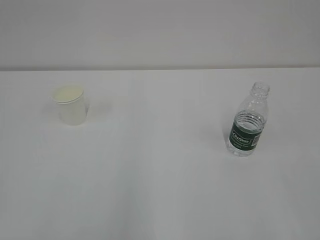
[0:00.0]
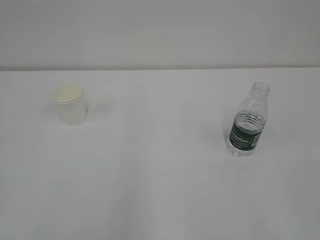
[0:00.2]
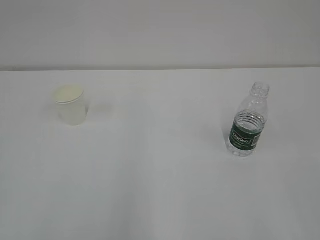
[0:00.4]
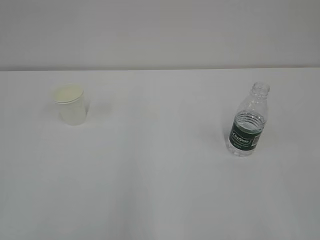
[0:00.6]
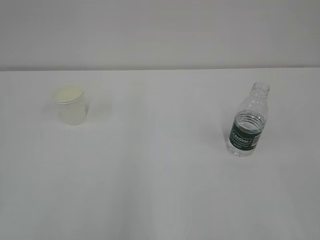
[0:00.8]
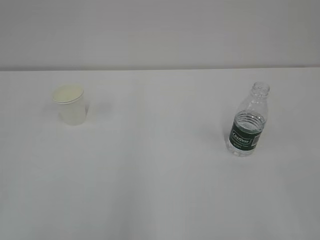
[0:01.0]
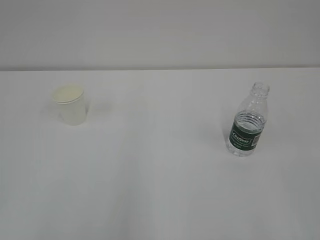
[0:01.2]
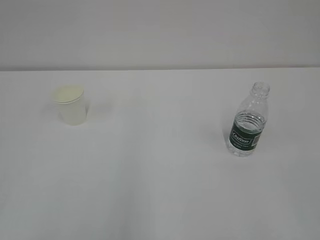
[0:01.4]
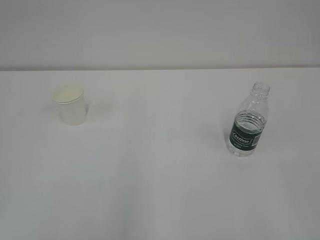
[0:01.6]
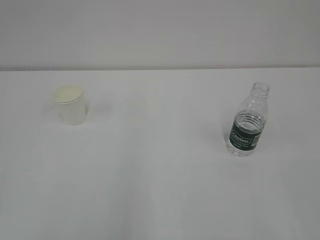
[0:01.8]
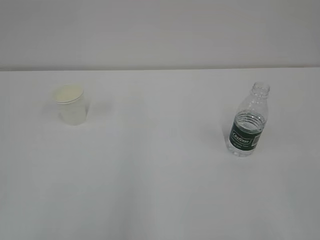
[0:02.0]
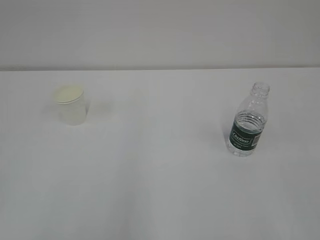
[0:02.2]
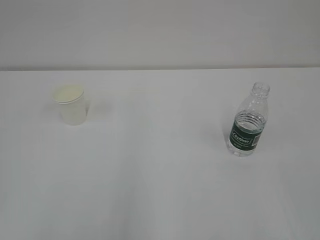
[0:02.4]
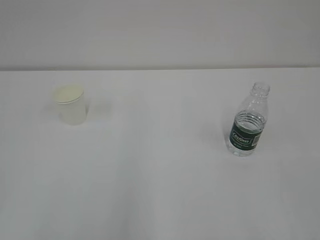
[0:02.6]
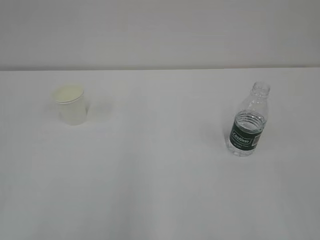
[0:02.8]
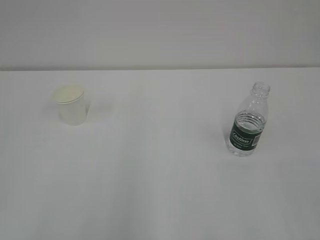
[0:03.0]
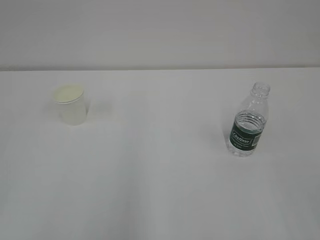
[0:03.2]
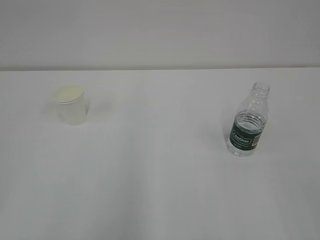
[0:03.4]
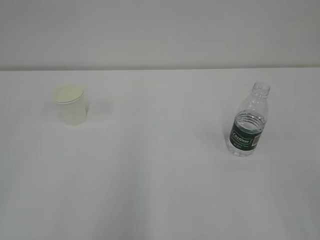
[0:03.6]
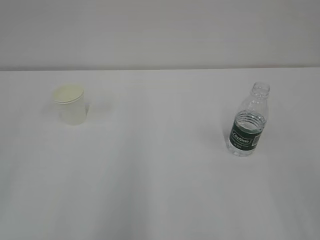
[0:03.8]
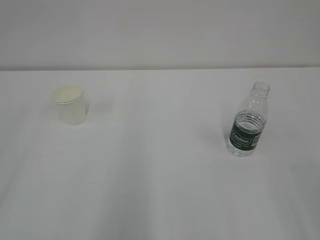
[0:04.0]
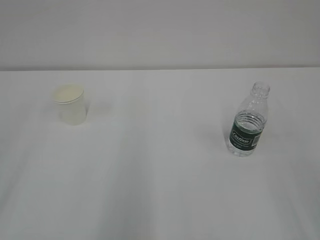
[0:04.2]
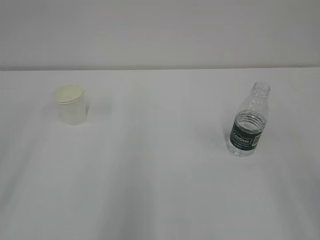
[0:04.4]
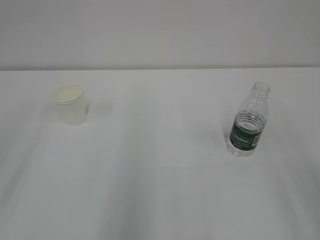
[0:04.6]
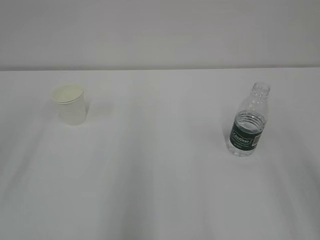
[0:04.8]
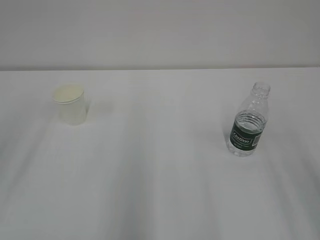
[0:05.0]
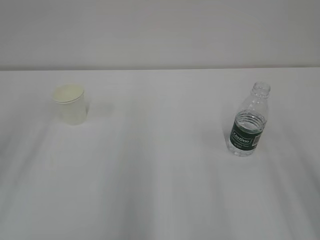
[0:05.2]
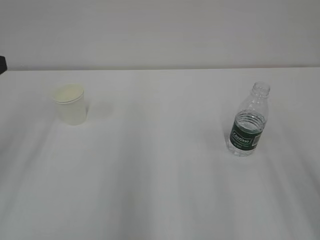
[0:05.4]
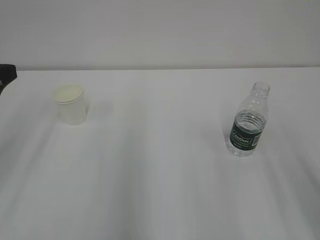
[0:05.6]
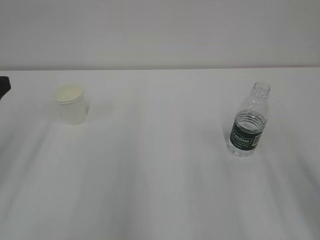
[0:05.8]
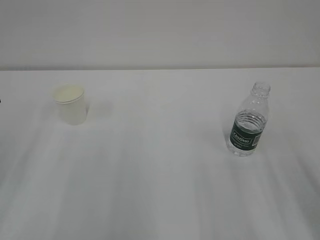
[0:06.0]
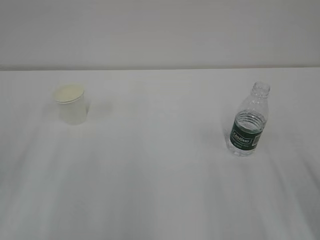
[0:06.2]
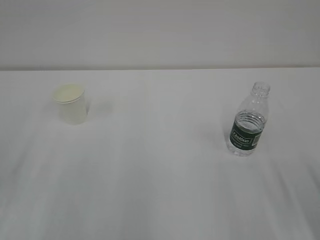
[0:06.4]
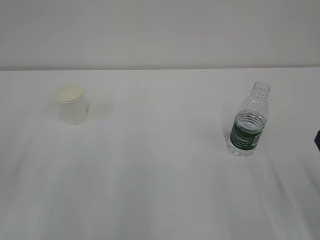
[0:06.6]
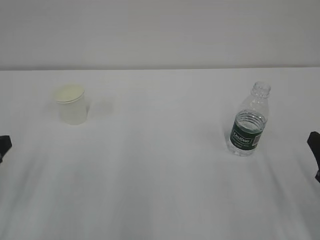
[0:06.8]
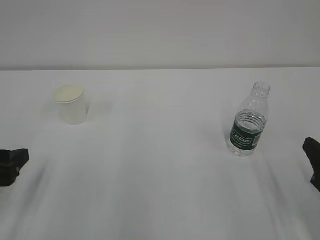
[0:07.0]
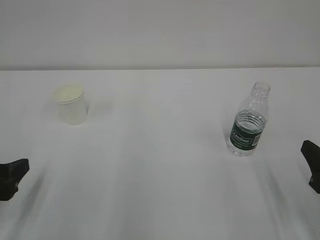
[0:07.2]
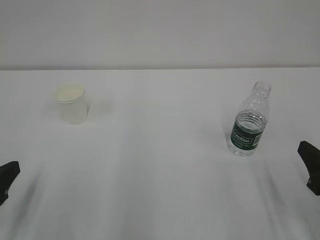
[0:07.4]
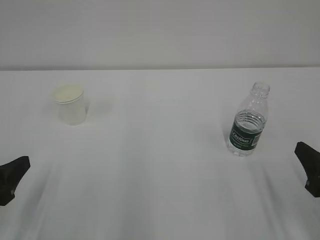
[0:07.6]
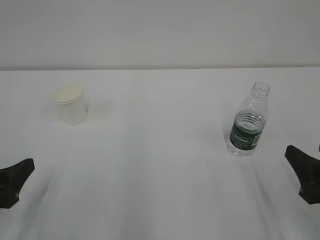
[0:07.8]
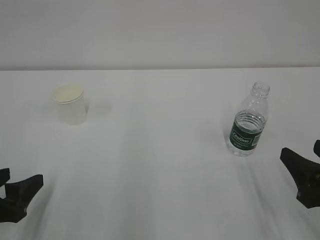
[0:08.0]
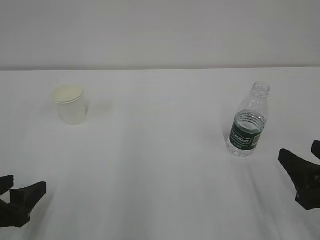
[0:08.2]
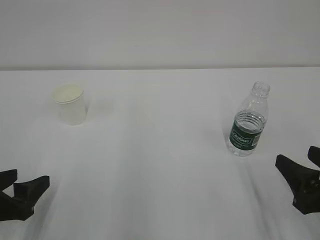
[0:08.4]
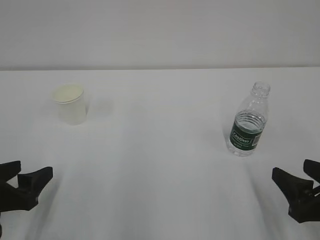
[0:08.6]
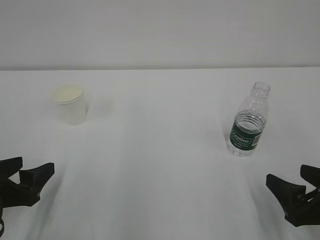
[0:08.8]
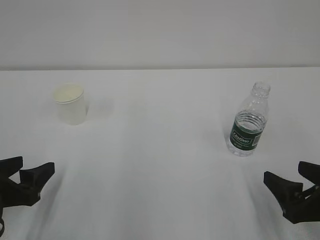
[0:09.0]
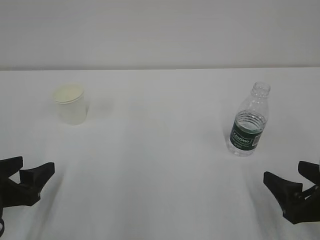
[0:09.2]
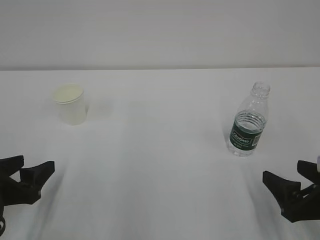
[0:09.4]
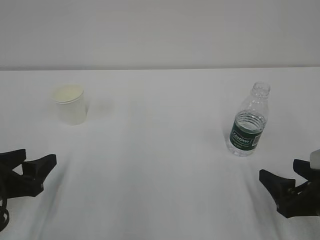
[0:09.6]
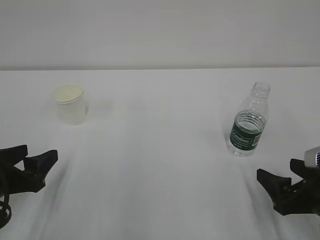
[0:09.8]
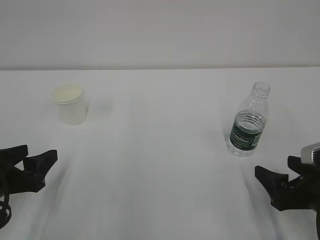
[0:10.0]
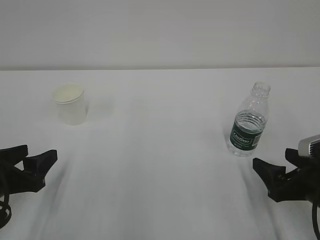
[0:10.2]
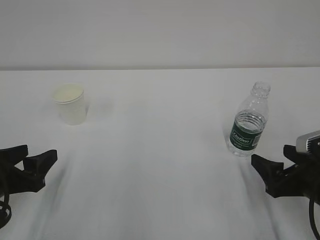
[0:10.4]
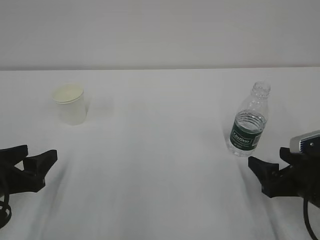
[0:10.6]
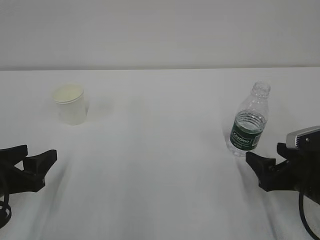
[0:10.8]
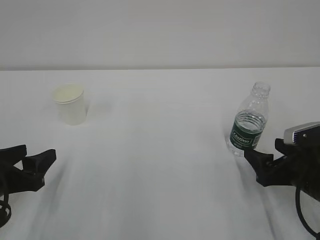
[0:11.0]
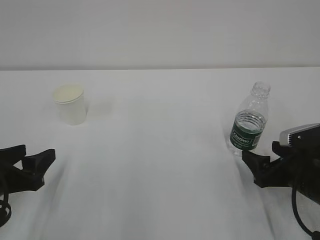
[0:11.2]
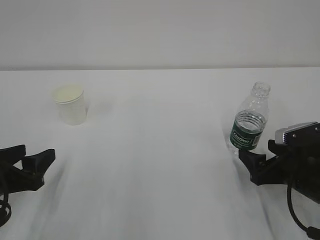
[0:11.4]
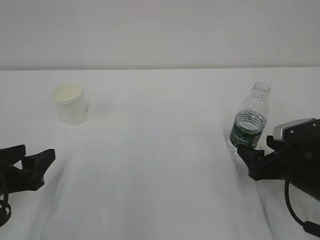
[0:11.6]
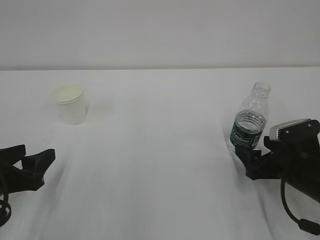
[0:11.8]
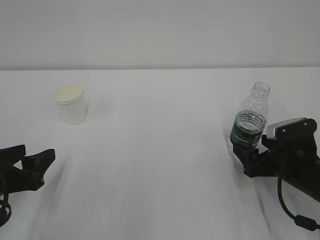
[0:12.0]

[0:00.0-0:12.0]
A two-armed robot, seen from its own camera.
0:06.0 to 0:07.6: The right gripper moves downward, roughly 10 cm. Meanwhile the left gripper is displaced downward and backward by some 10 cm.
0:07.6 to 0:09.0: The right gripper opens up.
0:09.0 to 0:10.4: The grippers stay close to where they were, moving slightly.
0:10.4 to 0:12.0: The right gripper heads forward, covering roughly 5 cm.

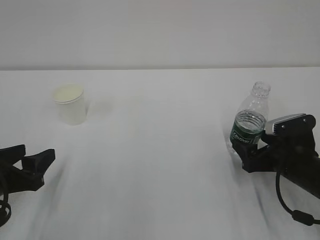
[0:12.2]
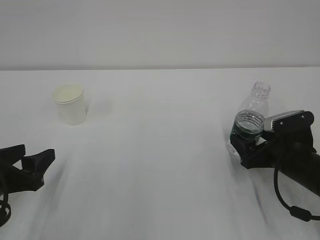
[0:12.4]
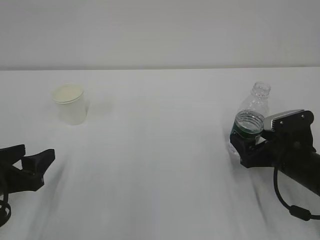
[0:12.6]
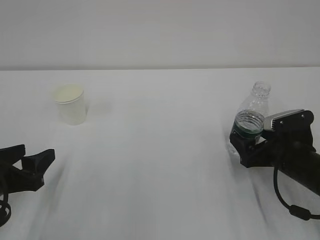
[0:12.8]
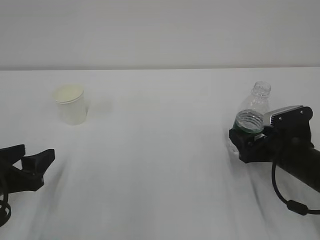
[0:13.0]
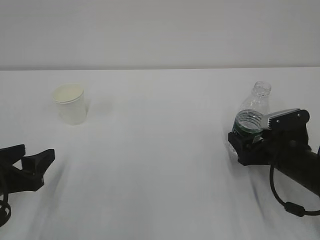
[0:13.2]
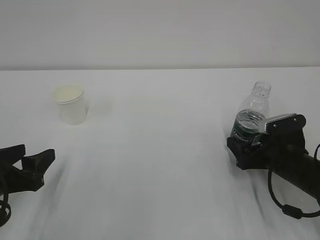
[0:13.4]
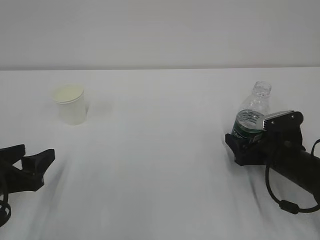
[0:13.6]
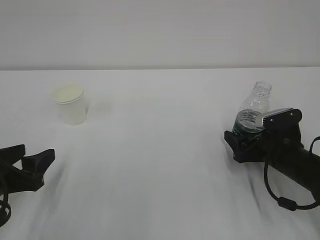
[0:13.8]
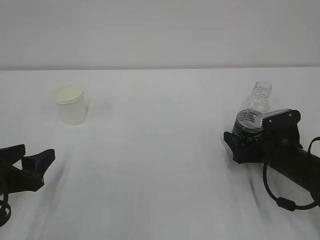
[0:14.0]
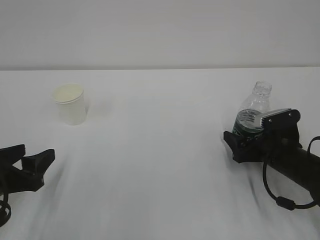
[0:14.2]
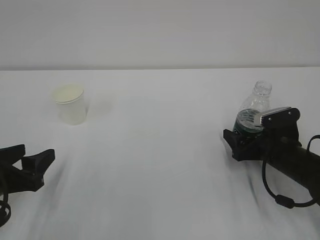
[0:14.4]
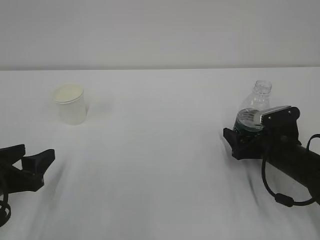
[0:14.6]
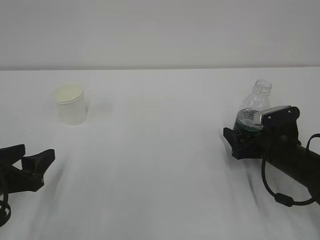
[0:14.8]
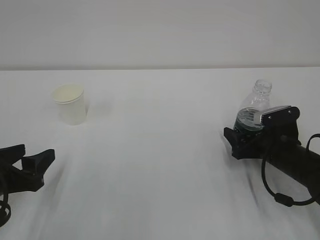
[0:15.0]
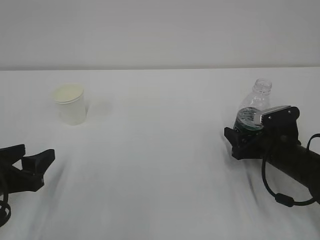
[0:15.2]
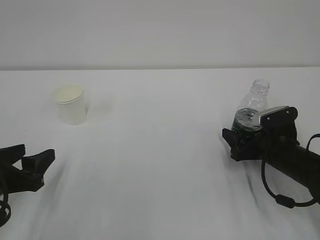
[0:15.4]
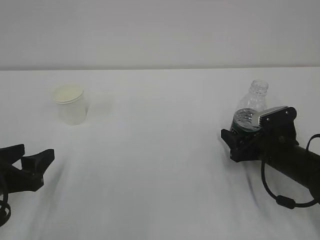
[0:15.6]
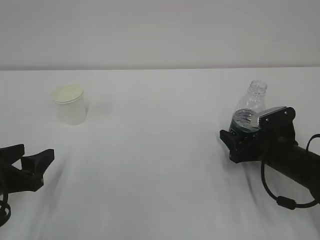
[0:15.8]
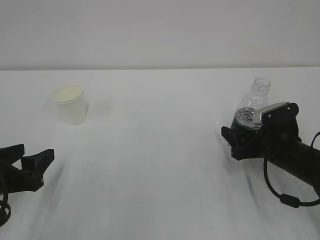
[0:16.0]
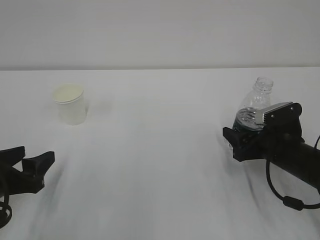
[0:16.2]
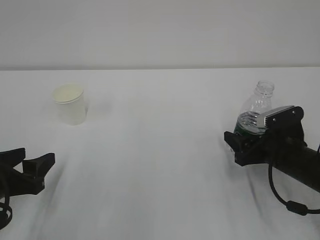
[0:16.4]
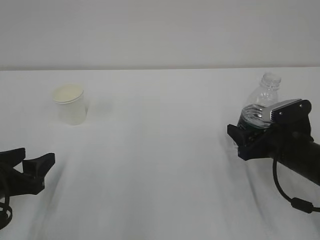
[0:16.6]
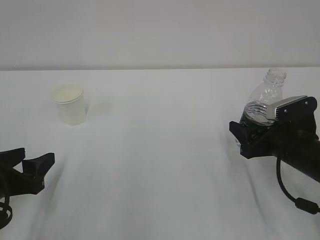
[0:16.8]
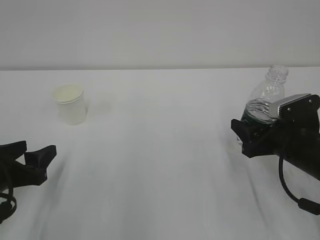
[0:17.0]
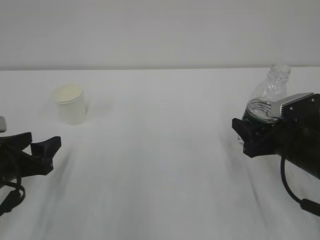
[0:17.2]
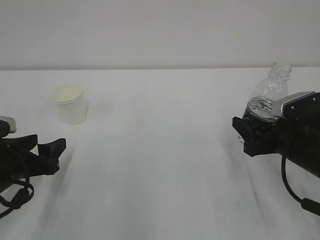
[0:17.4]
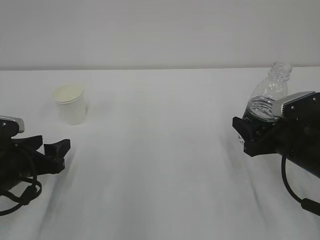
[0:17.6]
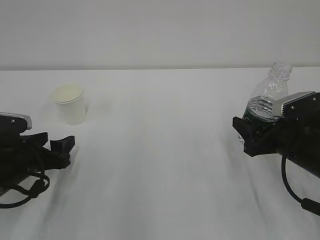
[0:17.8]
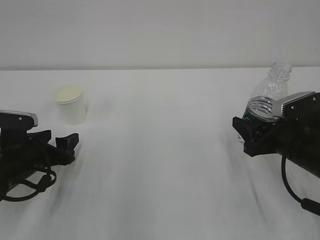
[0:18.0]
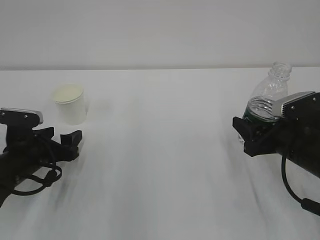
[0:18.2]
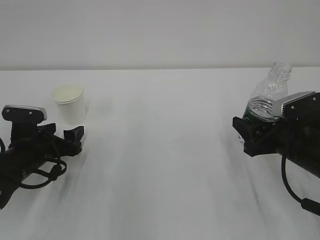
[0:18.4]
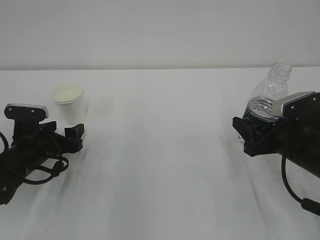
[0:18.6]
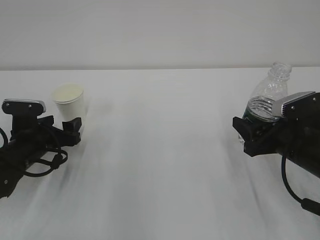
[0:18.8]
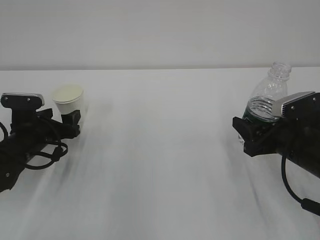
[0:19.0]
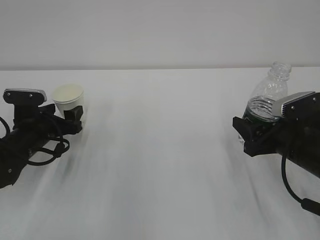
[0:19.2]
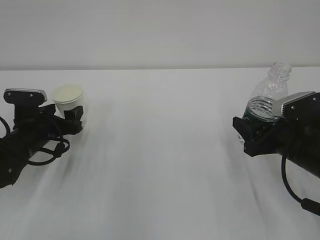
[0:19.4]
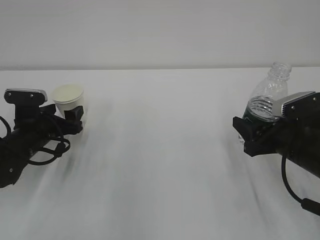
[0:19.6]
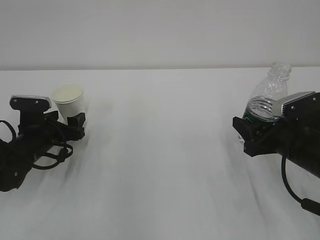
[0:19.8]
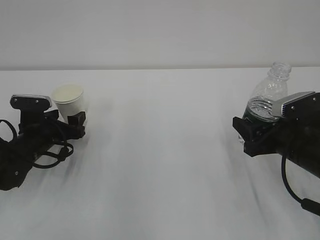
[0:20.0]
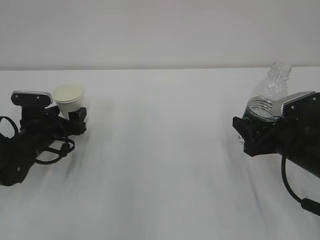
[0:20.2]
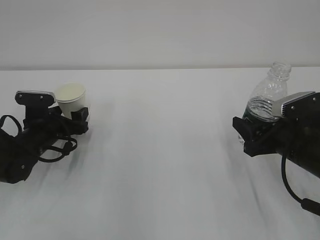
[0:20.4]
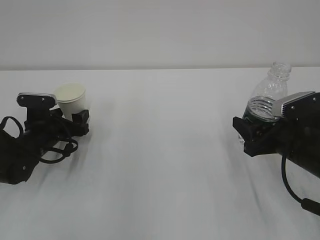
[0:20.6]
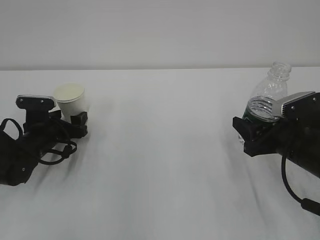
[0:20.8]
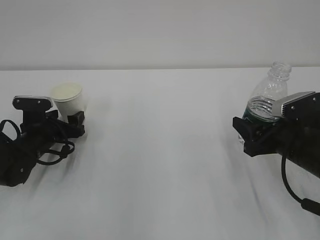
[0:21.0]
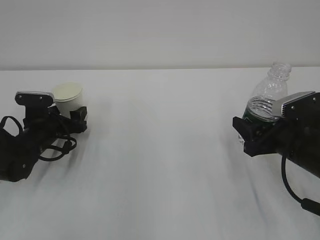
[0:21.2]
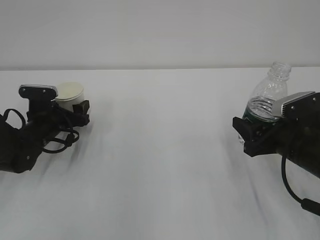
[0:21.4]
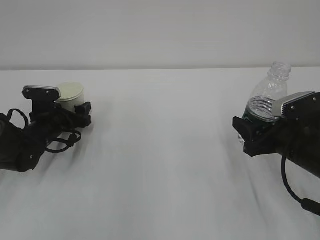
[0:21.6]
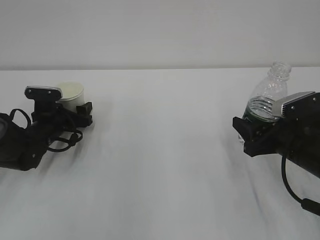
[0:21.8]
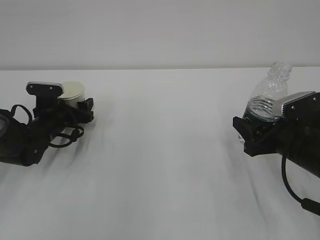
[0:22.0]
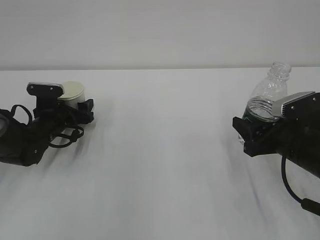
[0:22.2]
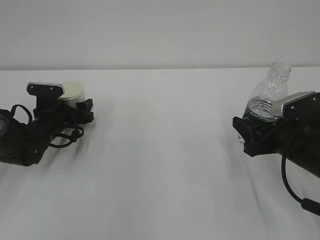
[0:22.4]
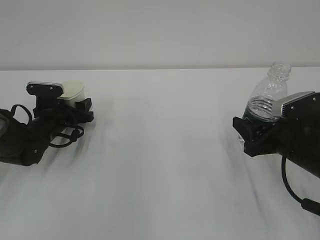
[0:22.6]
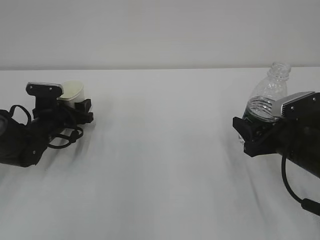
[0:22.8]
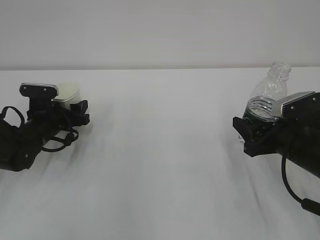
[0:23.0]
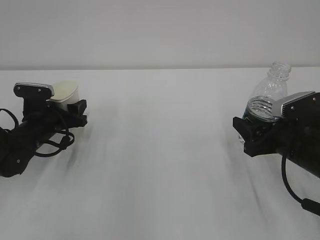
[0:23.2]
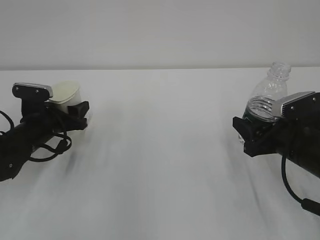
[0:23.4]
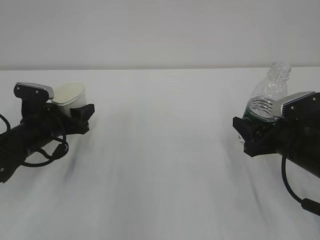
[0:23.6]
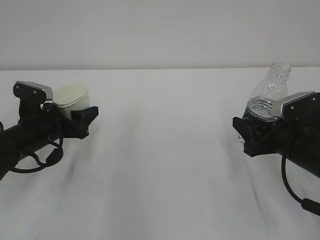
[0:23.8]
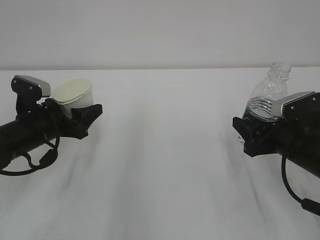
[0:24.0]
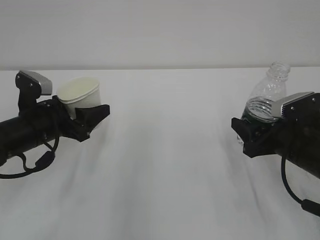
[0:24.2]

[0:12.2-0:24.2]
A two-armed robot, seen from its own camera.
0:12.2 to 0:13.8: The grippers stay close to where they were, moving slightly.
0:13.8 to 0:15.2: The right gripper closes its fingers.
0:15.2 to 0:16.6: The grippers stay close to where they were, moving slightly.
0:16.6 to 0:18.2: The left gripper goes approximately 10 cm forward.
0:18.2 to 0:19.8: The left gripper heads forward, covering roughly 5 cm.
0:19.8 to 0:21.2: There are only small adjustments of the grippers.
0:21.2 to 0:22.6: The left gripper closes.
0:22.6 to 0:24.2: The left gripper is displaced backward and upward by approximately 15 cm.
